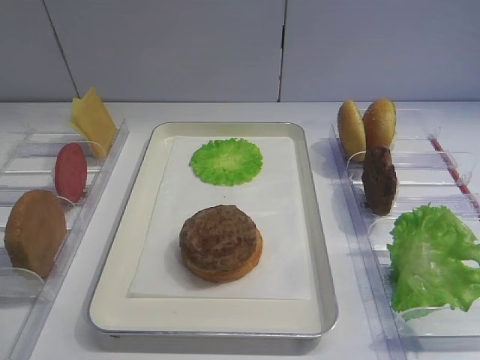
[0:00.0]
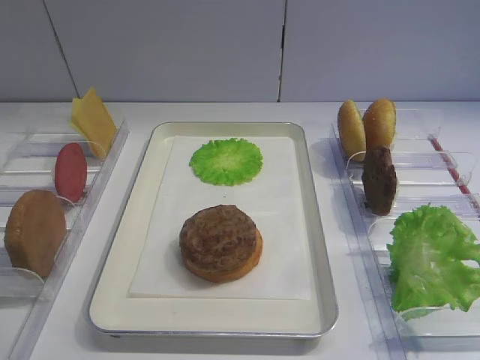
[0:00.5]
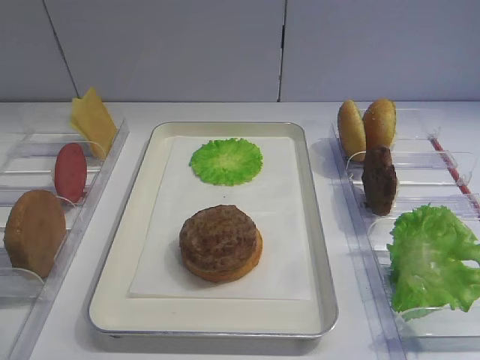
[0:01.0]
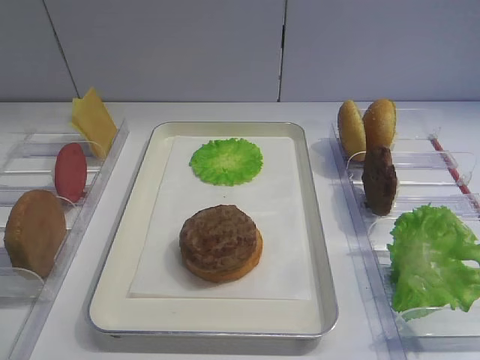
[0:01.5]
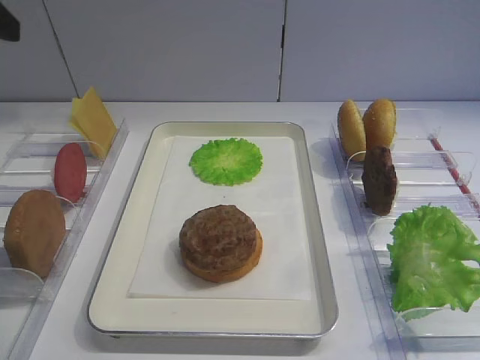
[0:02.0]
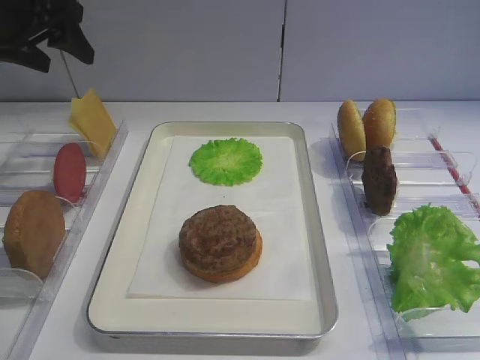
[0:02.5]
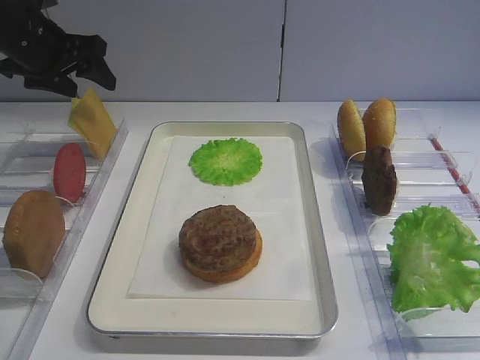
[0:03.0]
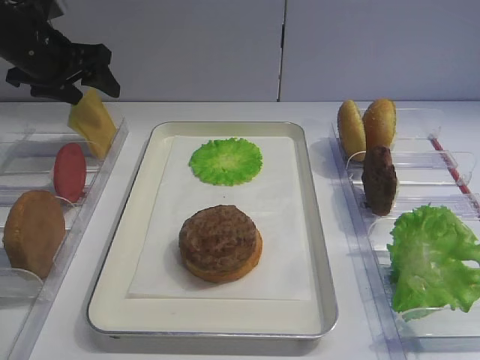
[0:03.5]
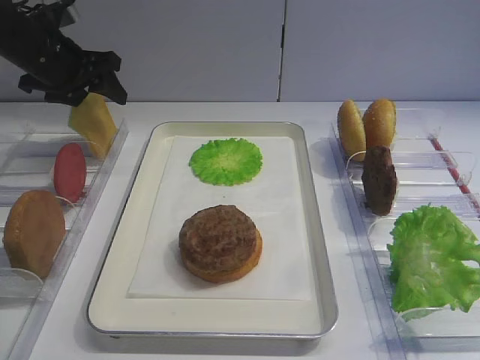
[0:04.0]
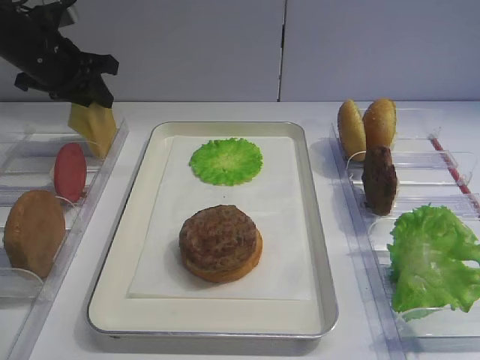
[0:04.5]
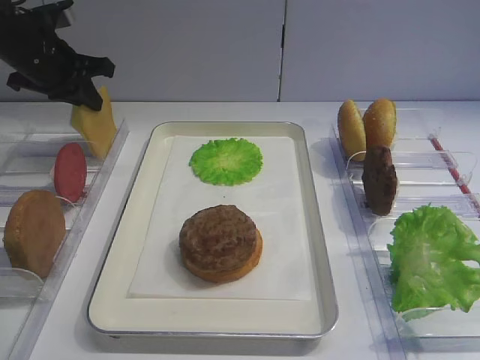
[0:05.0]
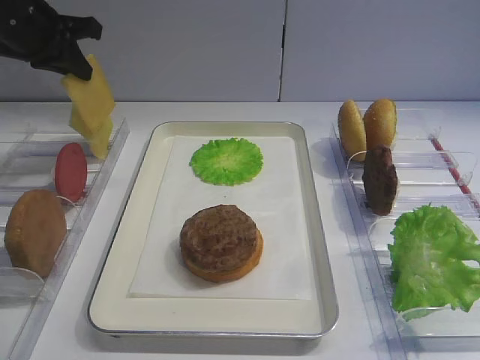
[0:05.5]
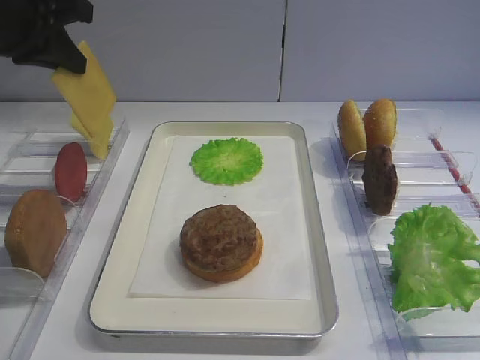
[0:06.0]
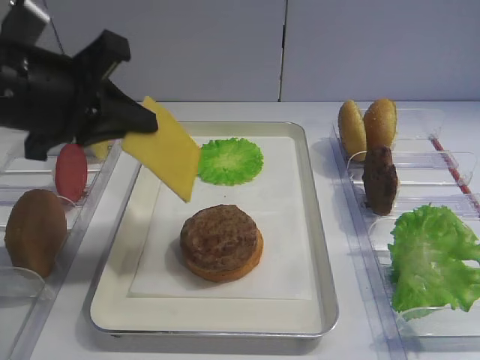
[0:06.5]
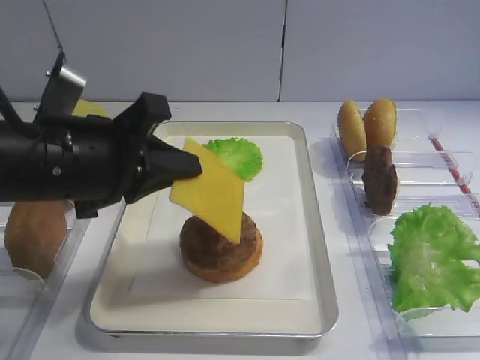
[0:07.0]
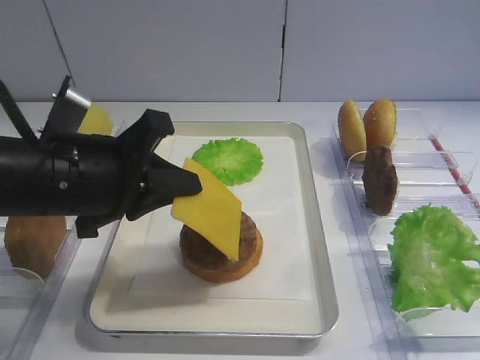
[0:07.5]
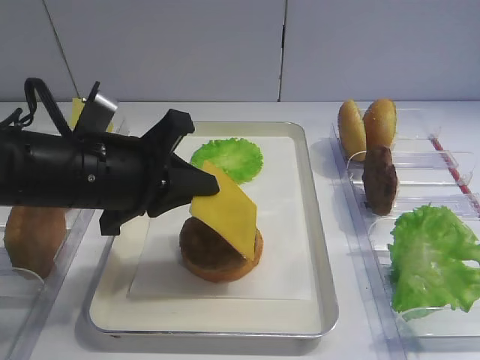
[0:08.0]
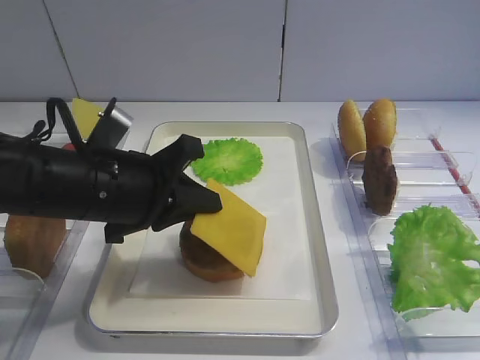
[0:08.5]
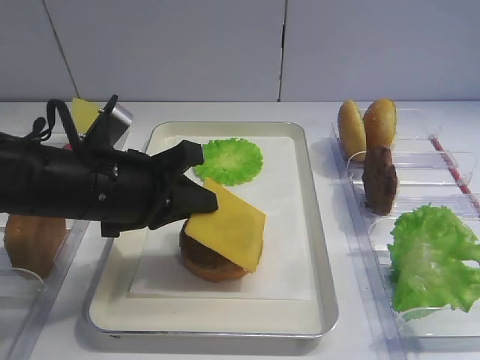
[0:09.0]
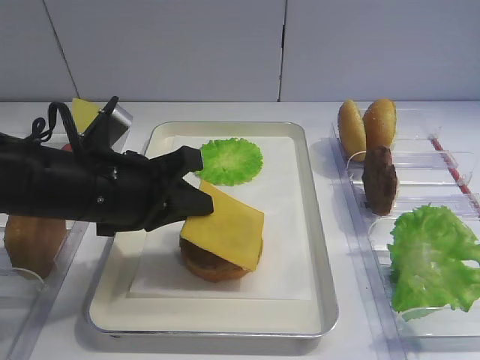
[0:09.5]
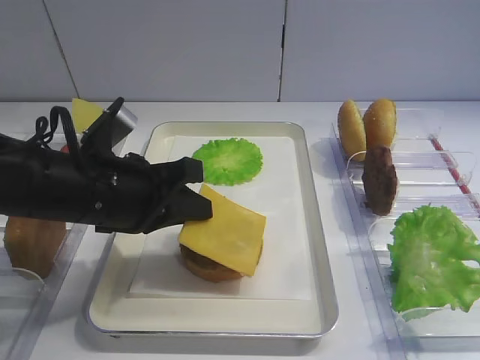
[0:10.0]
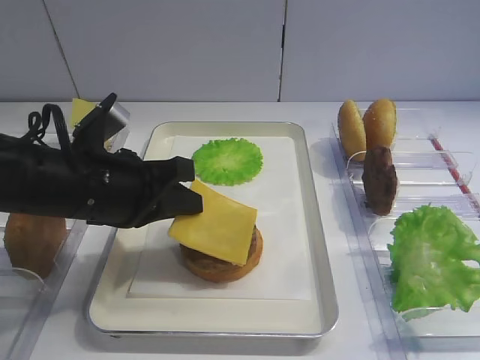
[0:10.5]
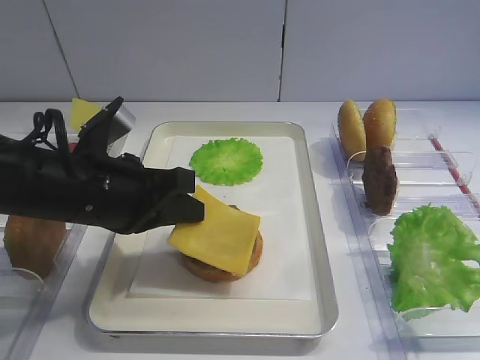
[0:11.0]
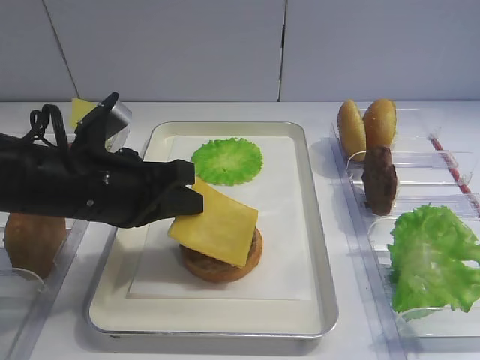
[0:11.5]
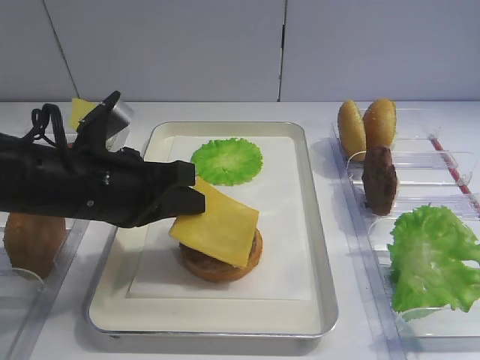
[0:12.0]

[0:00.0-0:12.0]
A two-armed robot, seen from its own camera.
Step, 0:00.0 to 0:05.5: Pick up the cheese slice with the left gripper.
0:02.0 to 0:04.0: The left gripper shifts approximately 25 cm forward and downward.
0:04.0 to 0:06.0: The left gripper goes about 15 cm backward and upward, and closes.
0:06.0 to 0:08.0: The left gripper travels to the right, backward and downward by roughly 20 cm.
0:08.0 to 0:10.0: There are only small adjustments of the grippers.
0:10.0 to 0:12.0: The grippers move only a little.

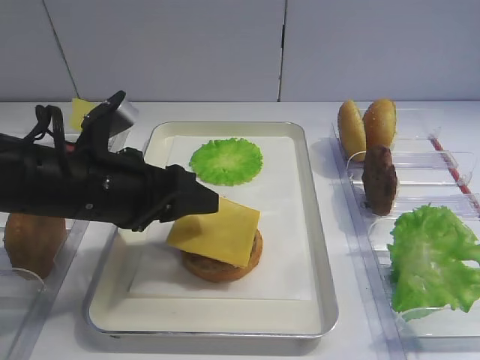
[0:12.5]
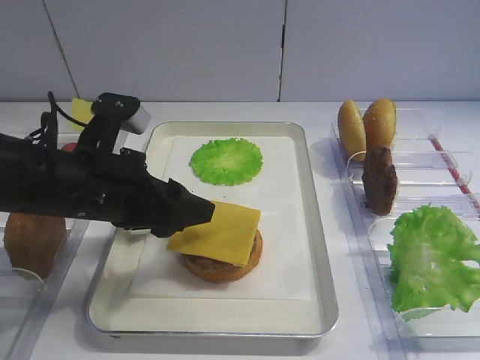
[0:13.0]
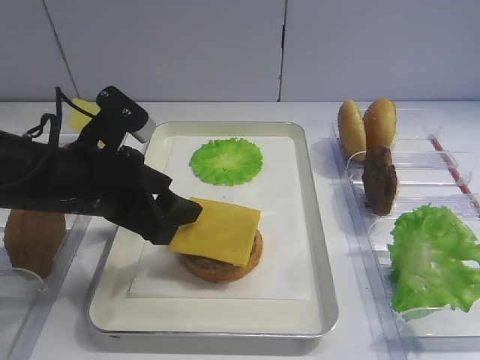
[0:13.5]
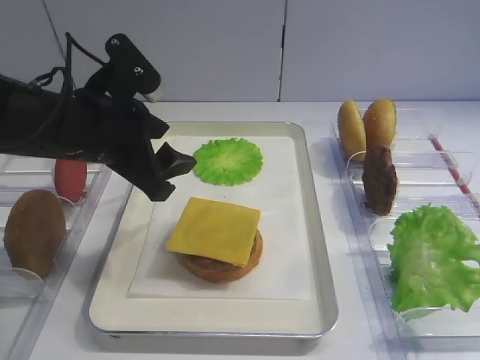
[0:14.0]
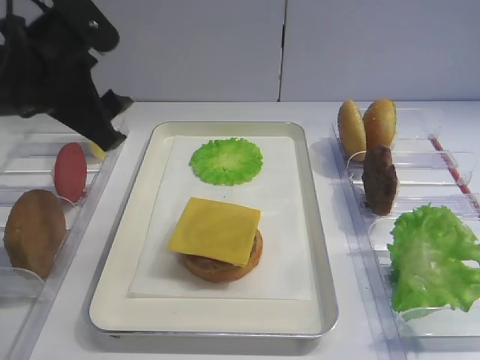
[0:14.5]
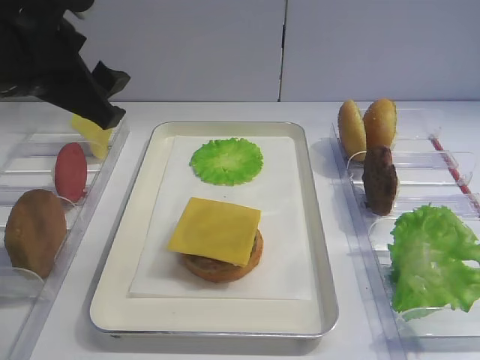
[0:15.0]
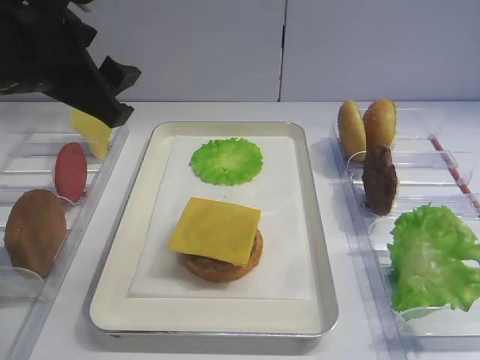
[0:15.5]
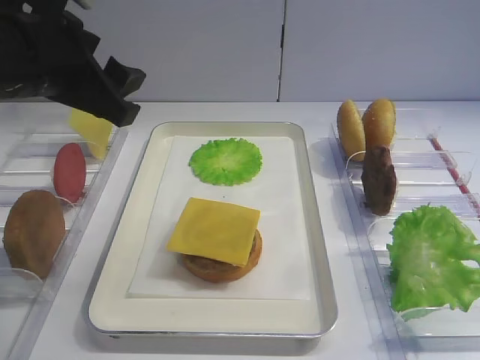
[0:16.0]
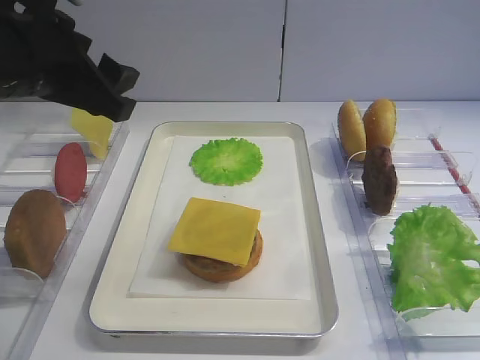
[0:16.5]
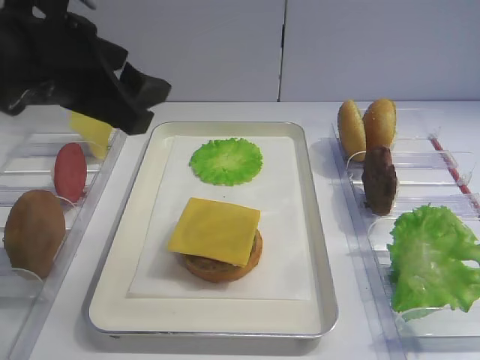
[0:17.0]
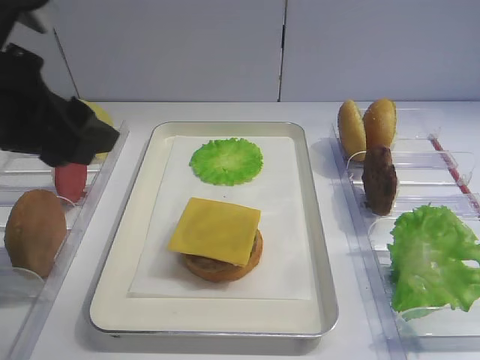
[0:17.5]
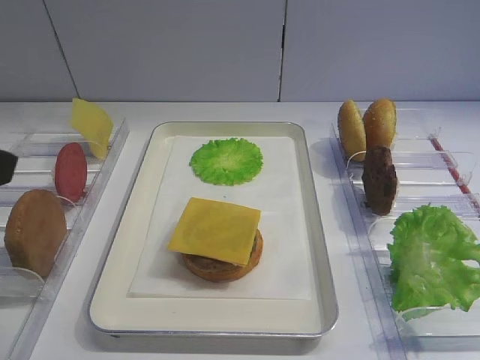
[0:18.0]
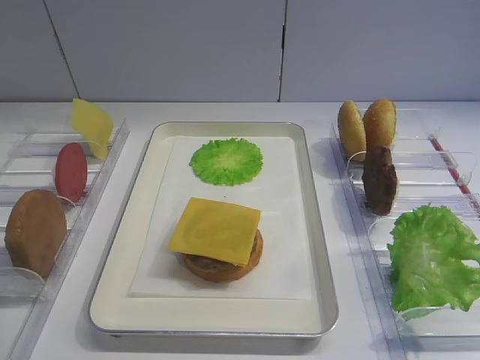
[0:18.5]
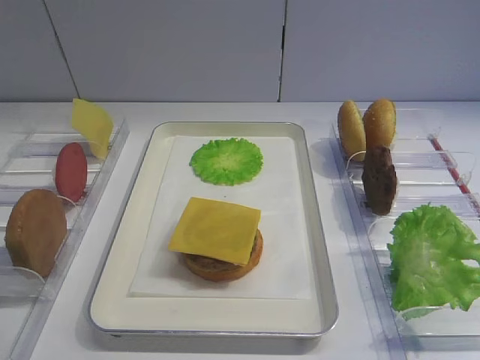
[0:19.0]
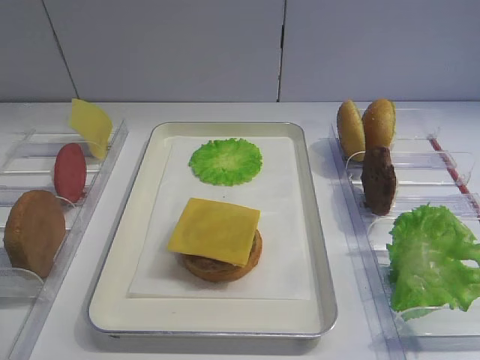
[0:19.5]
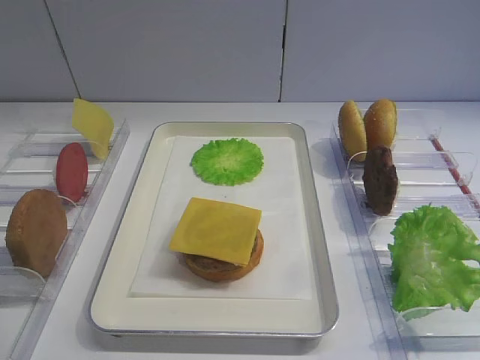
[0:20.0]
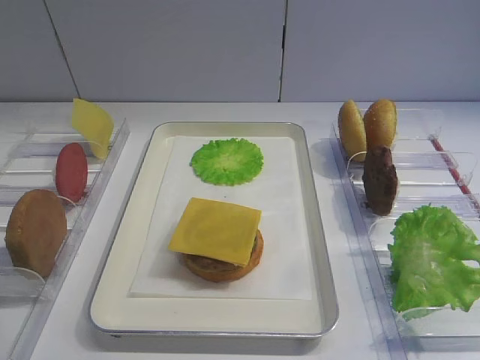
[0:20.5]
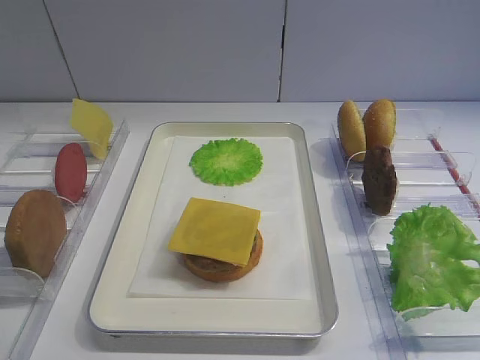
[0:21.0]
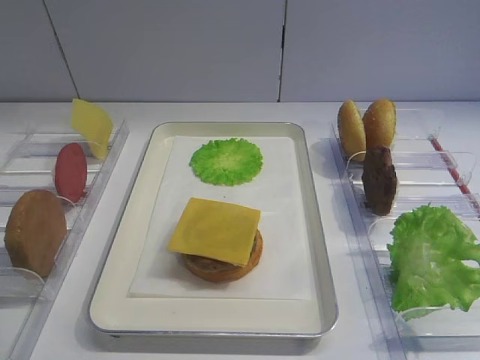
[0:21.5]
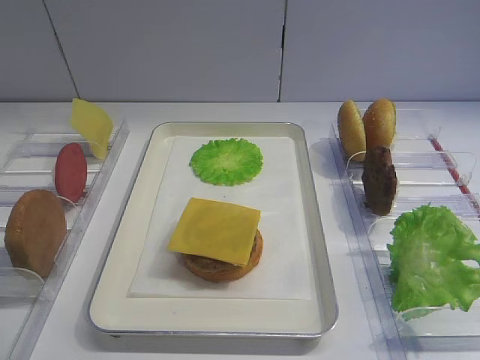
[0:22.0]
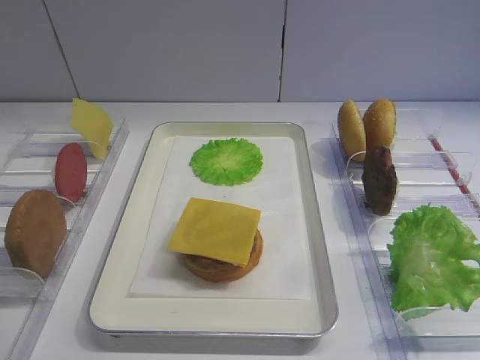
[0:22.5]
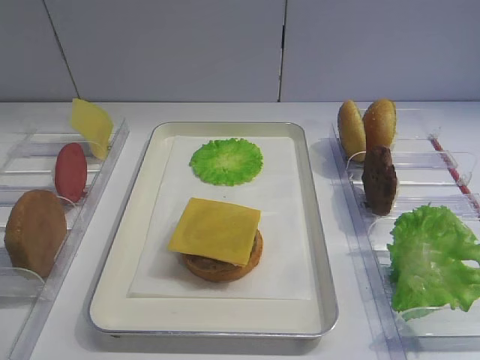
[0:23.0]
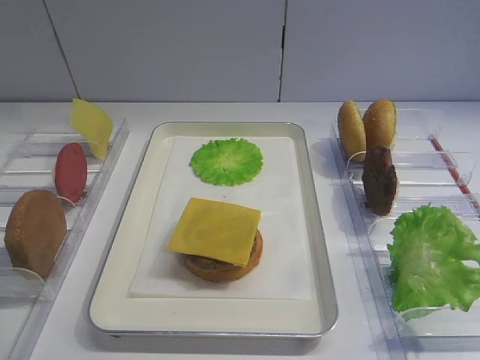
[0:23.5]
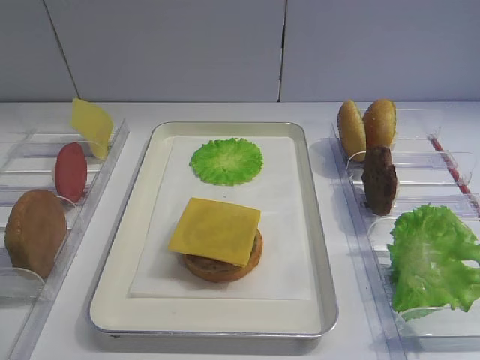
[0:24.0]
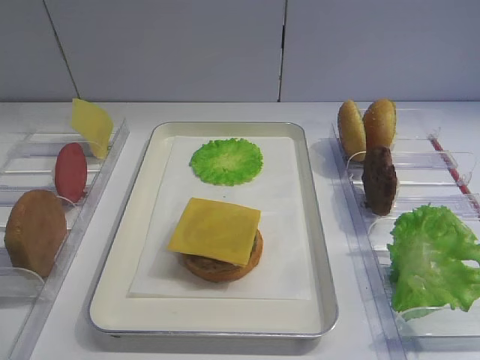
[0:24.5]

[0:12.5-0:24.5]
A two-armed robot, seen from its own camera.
0:12.5 to 0:14.5: The left gripper shifts approximately 10 cm upward.
0:14.5 to 0:16.5: There are only small adjustments of the grippers.
0:16.5 to 0:18.5: The left gripper moves backward and to the left, some 25 cm.
0:22.5 to 0:24.5: The two grippers keep their place.

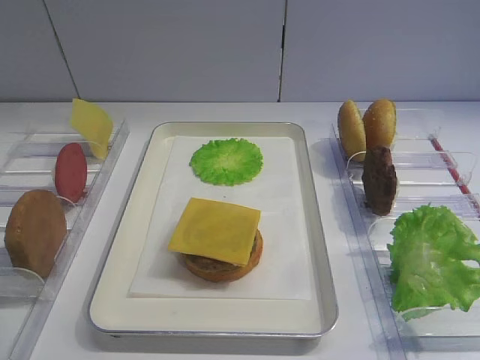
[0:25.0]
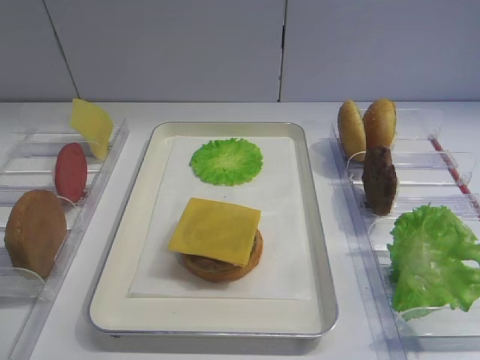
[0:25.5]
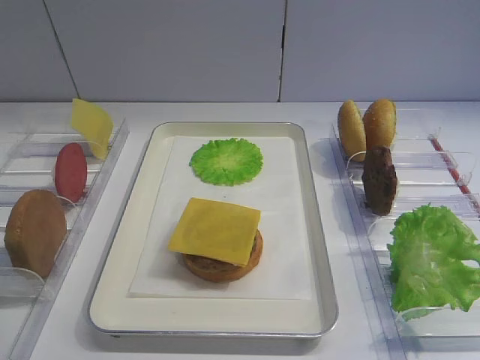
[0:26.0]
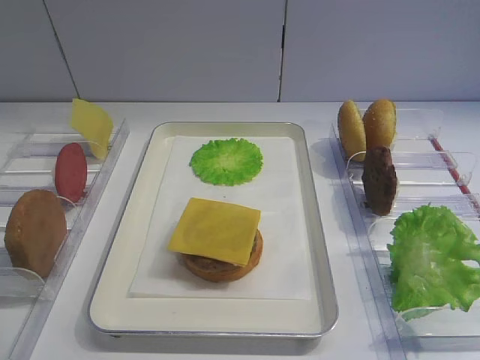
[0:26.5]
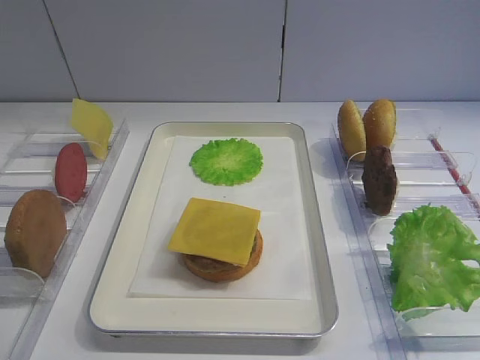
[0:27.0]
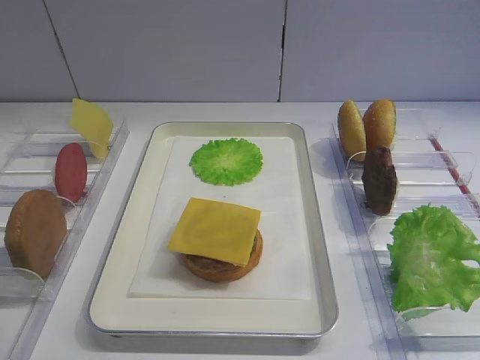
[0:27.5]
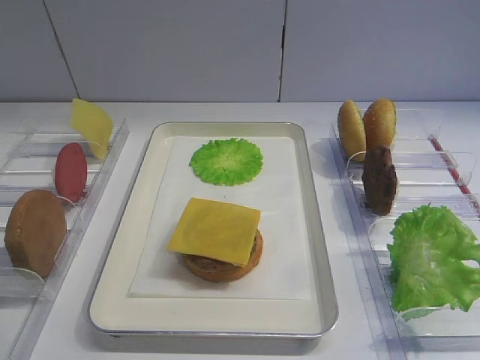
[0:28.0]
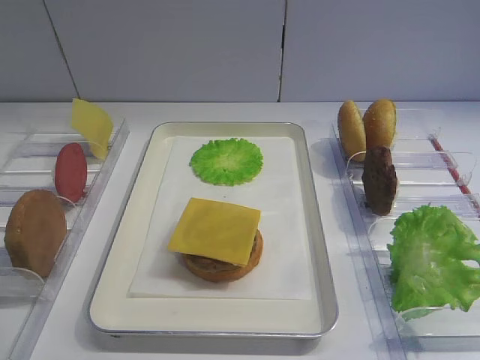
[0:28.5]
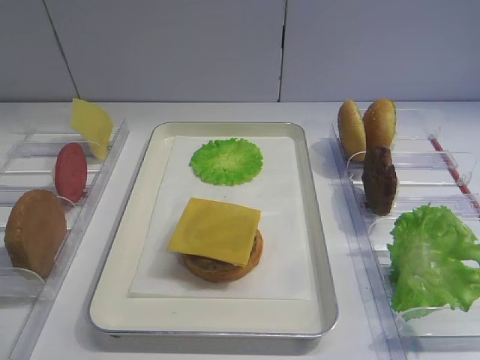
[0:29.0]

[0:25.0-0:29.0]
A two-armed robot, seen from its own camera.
0:25.0 to 0:29.0: Both grippers stay put.
